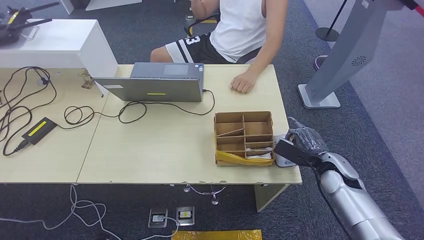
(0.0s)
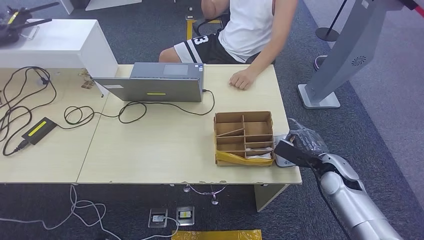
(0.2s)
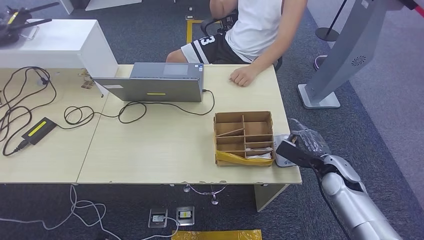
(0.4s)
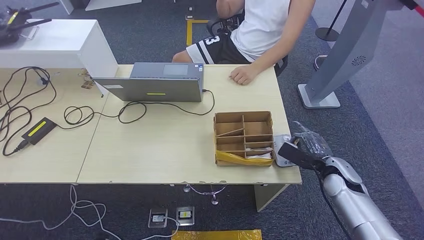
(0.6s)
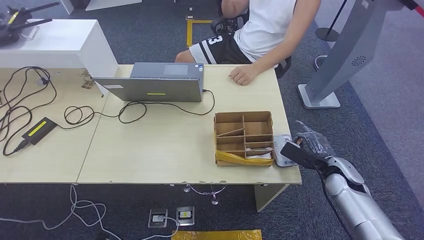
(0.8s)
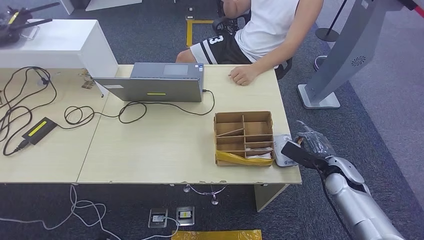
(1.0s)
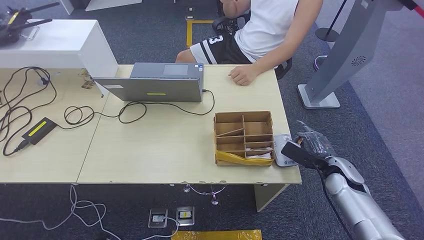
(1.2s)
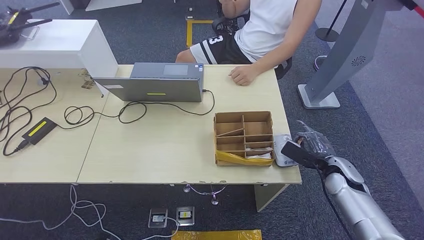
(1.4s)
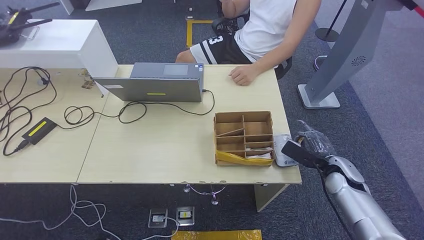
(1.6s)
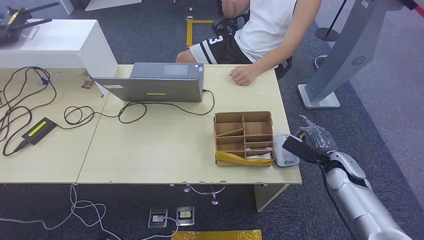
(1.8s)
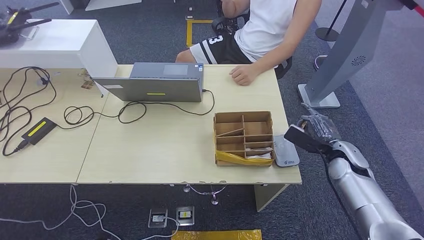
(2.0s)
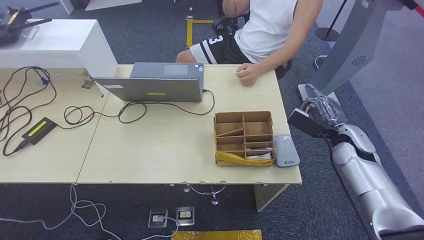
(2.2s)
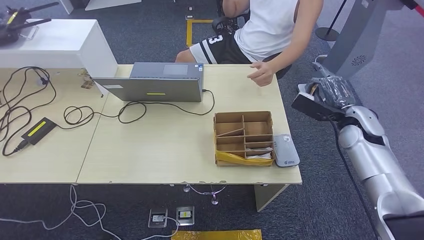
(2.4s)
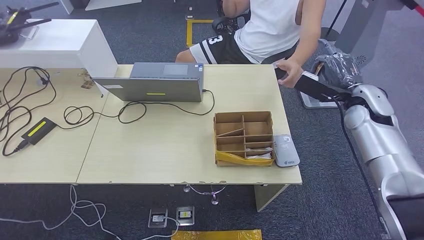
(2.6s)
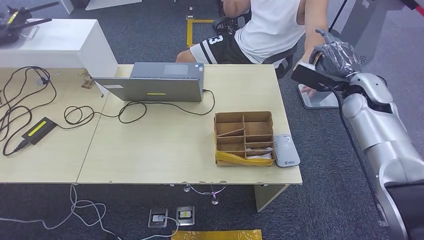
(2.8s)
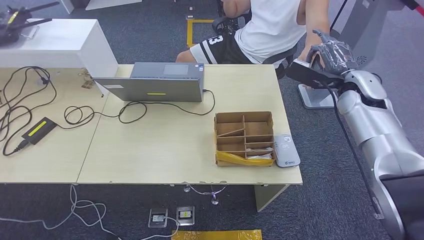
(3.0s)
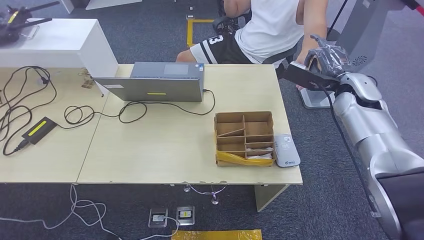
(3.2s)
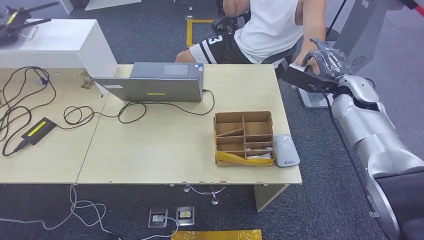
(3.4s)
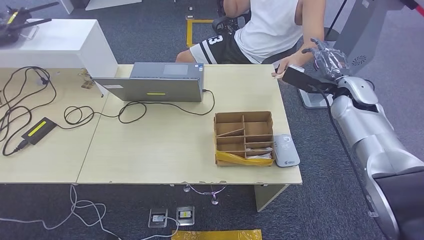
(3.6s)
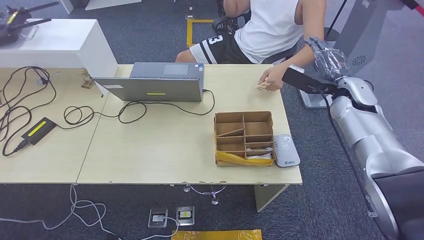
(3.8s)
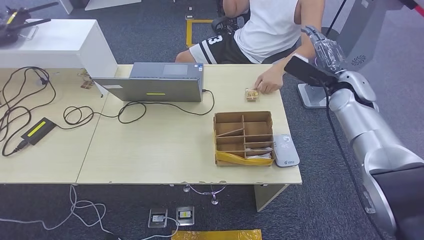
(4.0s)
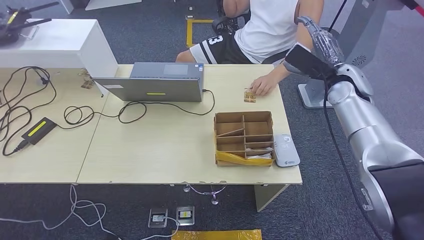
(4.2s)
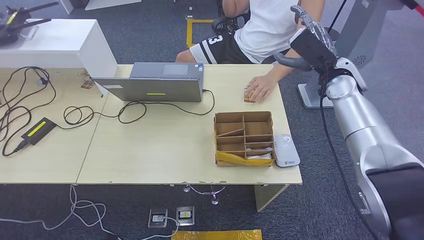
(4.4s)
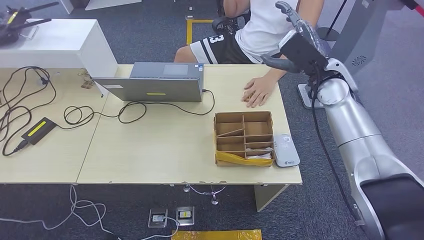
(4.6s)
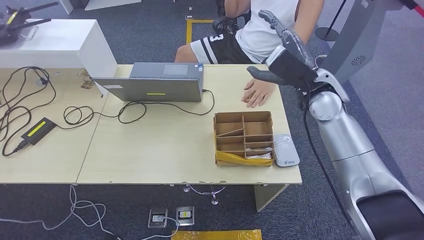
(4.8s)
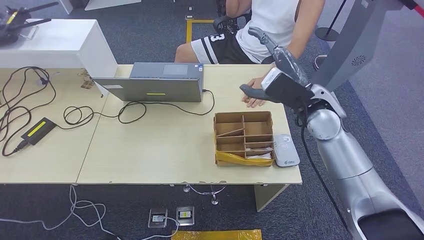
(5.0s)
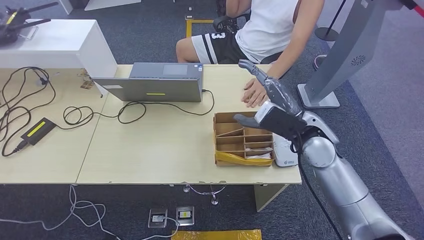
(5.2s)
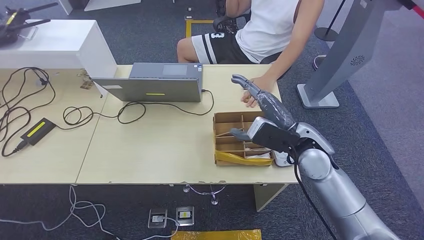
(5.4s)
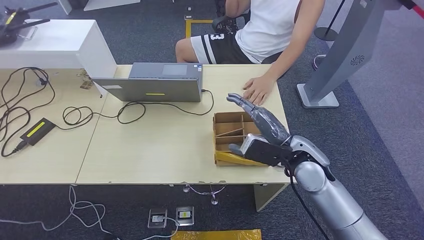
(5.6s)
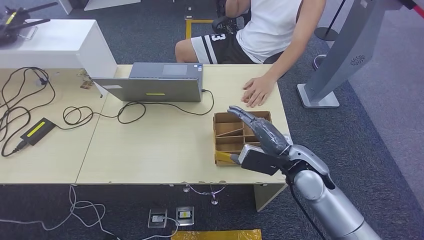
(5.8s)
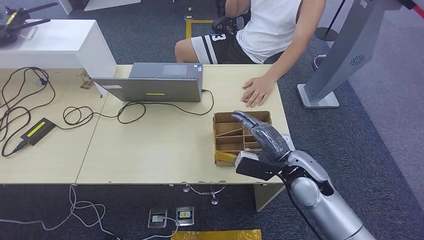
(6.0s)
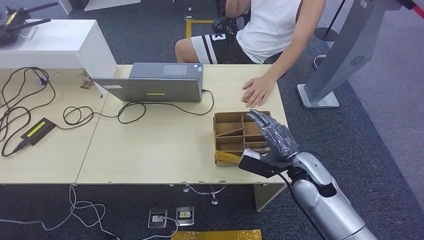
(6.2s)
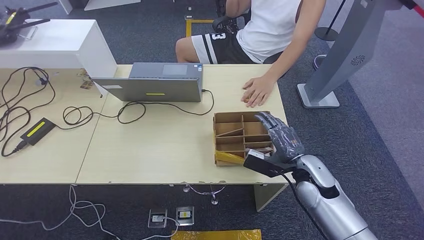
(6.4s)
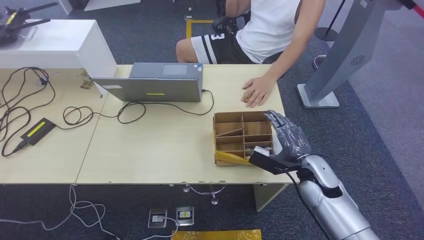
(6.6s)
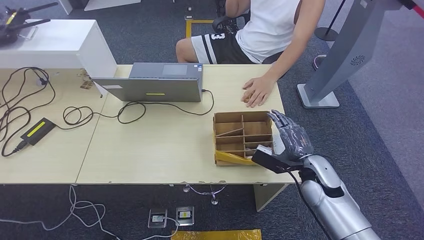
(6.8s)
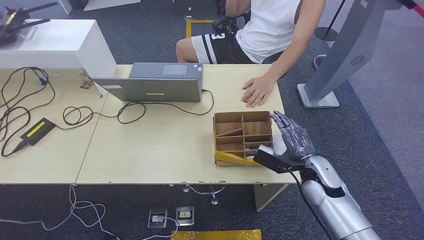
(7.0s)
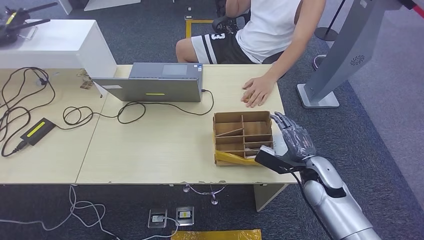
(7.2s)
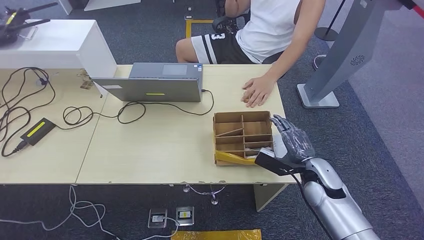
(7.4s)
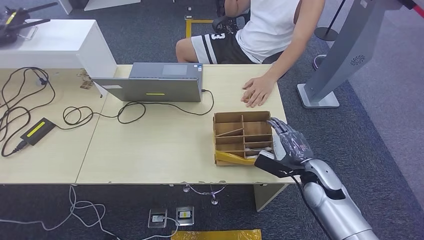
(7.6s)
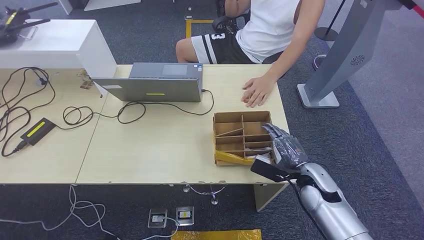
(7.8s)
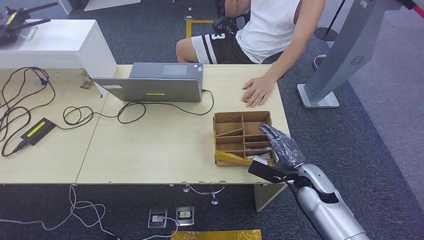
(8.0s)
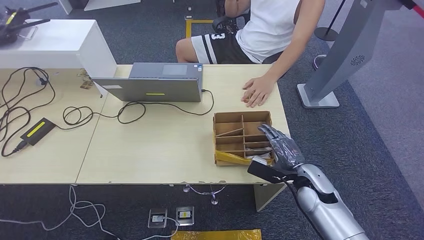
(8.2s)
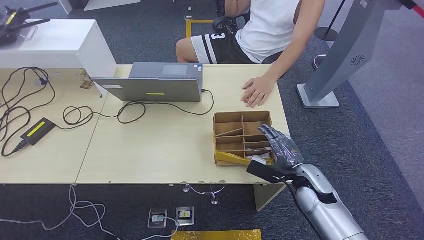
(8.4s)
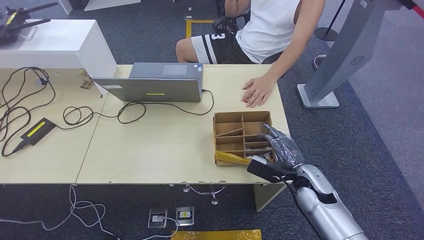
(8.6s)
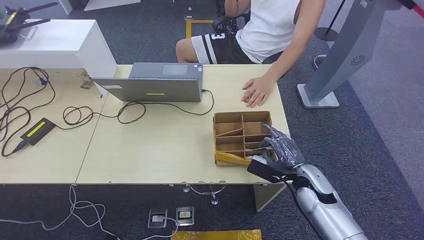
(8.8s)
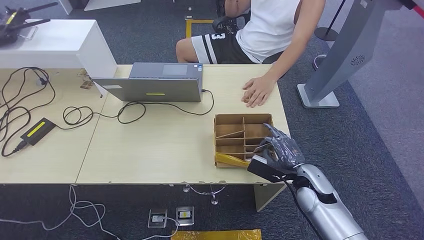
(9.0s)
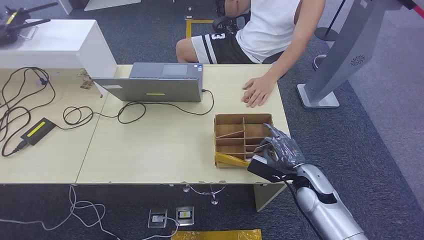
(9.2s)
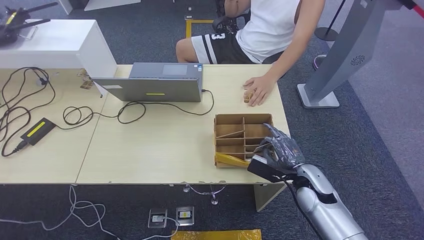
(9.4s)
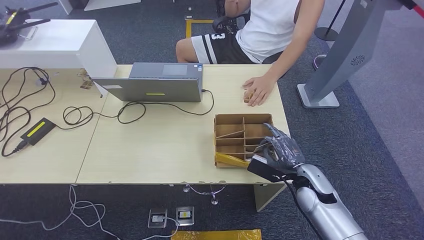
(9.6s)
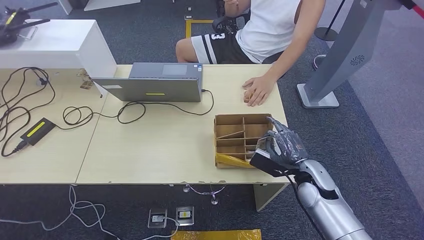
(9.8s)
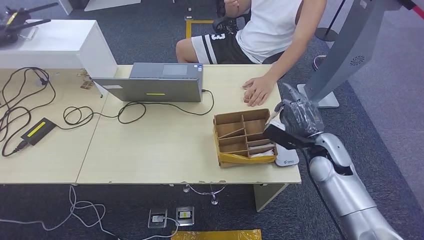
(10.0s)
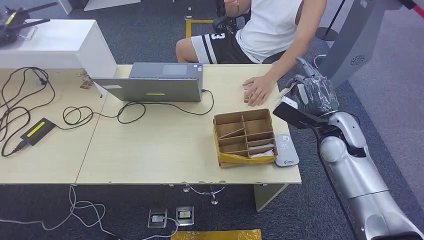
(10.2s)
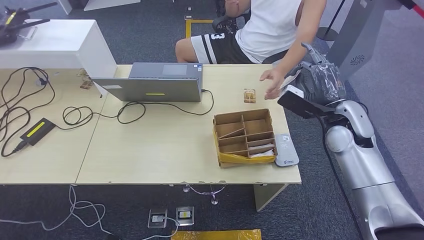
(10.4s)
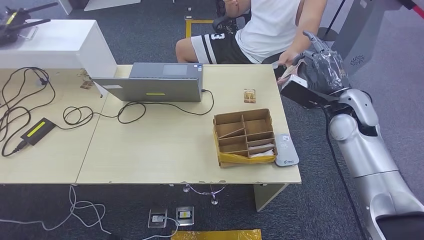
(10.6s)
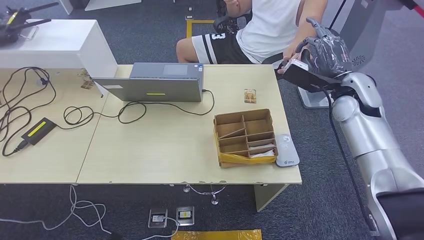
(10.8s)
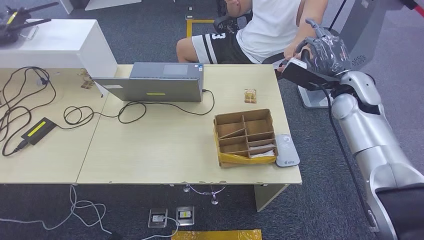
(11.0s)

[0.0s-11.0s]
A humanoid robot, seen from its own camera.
Step, 0.0s to 1.8s: Place the ID card on the card reader.
Step, 2.4s to 4.8s: Hand the ID card to the person.
Step, 5.2s to 10.2s: Pick up the room key from the key card box.
0.0s to 1.6s: There are only small adjustments of the hands.
1.6s to 3.2s: The right hand heads upward and forward, covering about 25 cm.
3.2s to 4.8s: The right hand heads to the left, covering some 10 cm.
4.8s to 6.2s: The right hand is displaced downward and backward by roughly 20 cm.
6.2s to 7.8s: The right hand goes approximately 5 cm downward.
7.8s to 9.4s: Both hands stay put.
9.4s to 11.0s: The right hand travels upward and forward by roughly 25 cm.

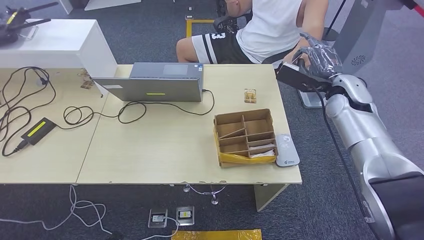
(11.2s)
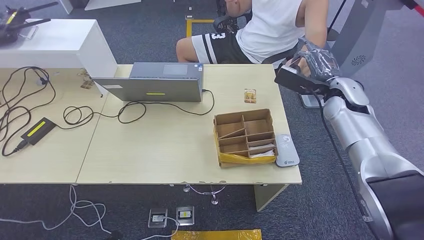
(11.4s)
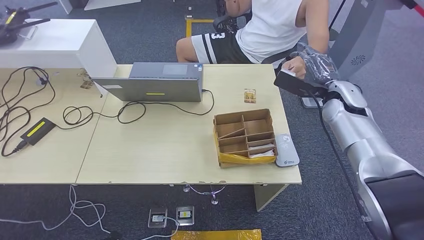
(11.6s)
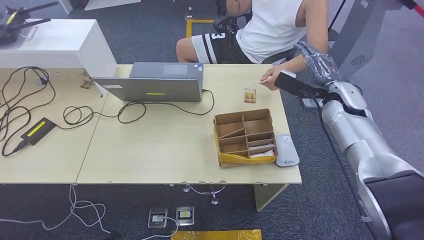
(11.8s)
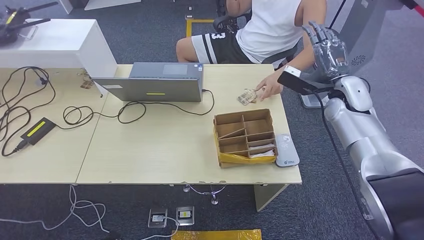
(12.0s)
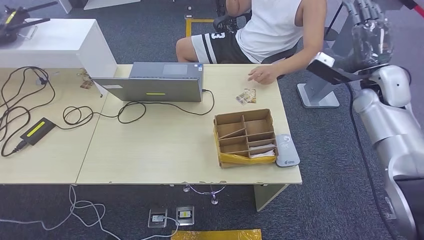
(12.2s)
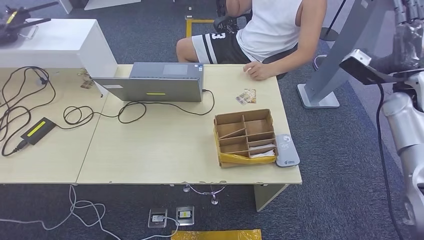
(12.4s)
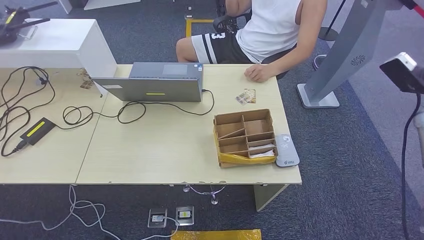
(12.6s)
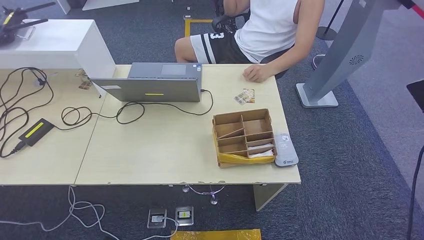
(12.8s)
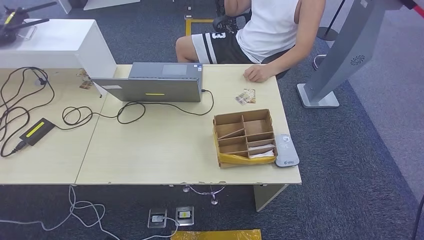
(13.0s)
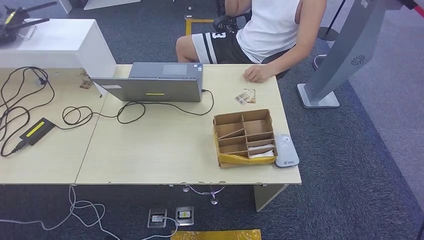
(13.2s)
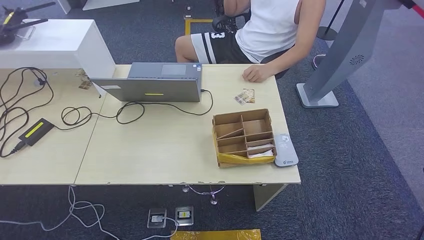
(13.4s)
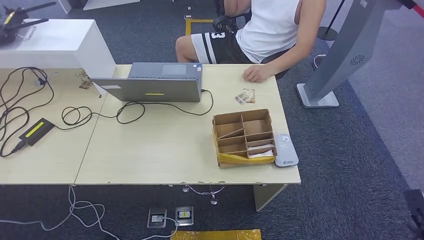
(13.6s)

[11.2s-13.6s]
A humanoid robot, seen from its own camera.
Step, 11.2s to 13.6s: Hand the room key to the person.
11.2s to 12.4s: The right hand shifts roughly 10 cm to the right.
12.4s to 13.6s: The right hand shifts about 40 cm downward, backward and to the right.
